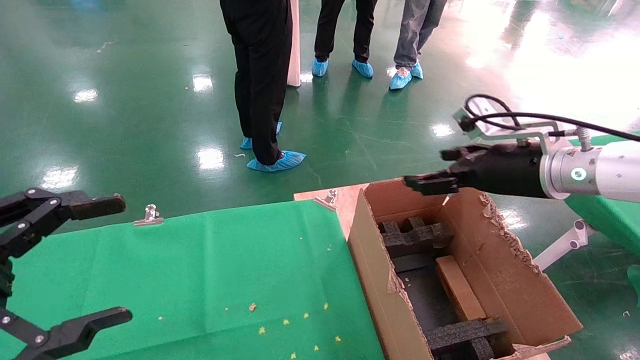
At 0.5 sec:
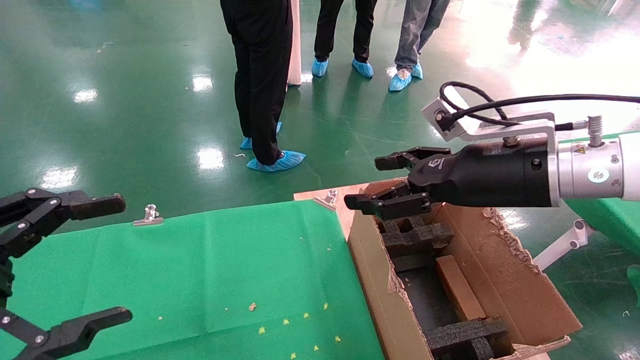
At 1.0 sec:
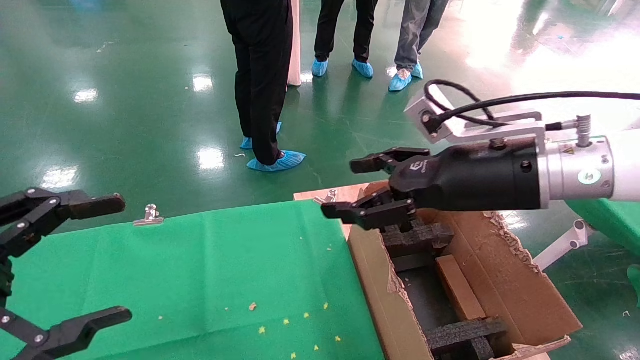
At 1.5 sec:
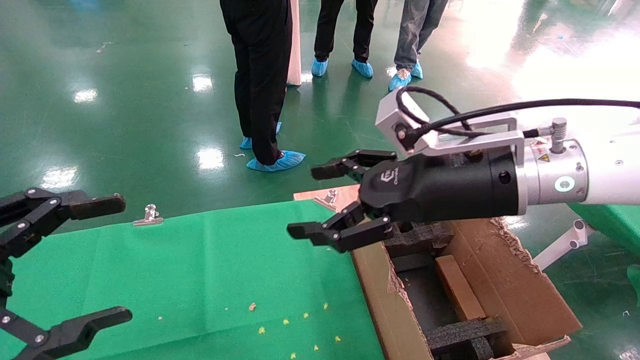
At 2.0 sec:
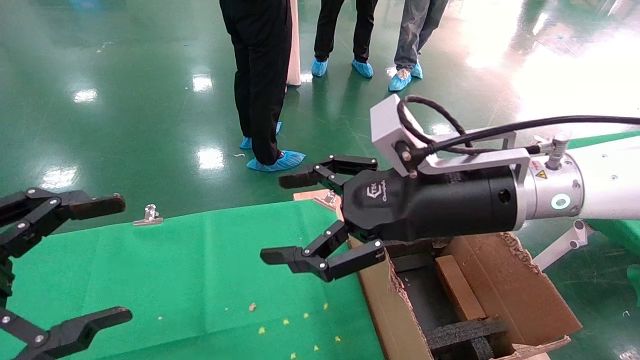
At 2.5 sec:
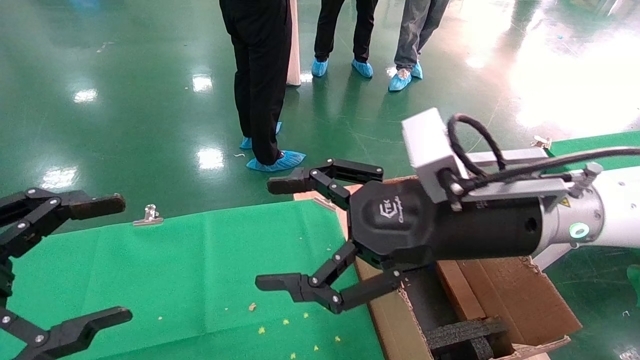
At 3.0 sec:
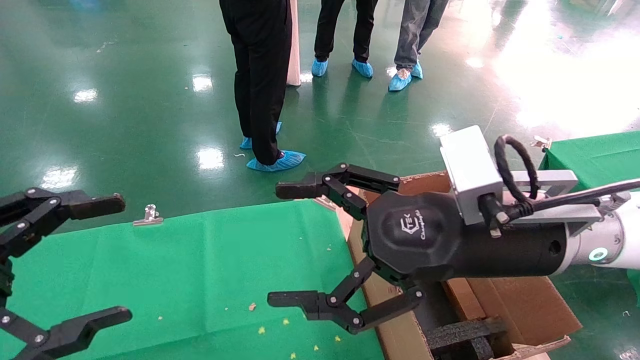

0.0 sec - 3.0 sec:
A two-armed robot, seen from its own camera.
Task of the whole recording: using a robotic arm to pick up a cardboard box and palace it the carton.
0.0 sec - 1.5 sec: The right gripper heads to the left and backward, covering about 15 cm.
1.5 sec - 3.0 sec: The right gripper moves roughly 5 cm.
